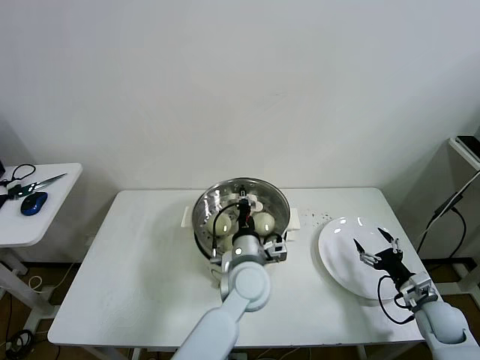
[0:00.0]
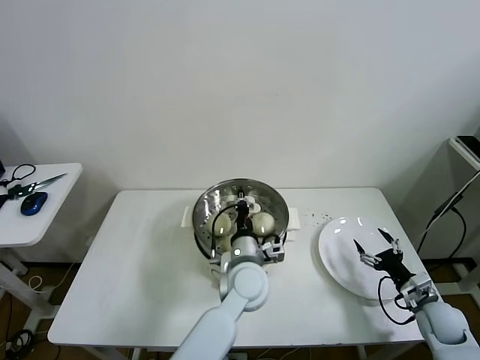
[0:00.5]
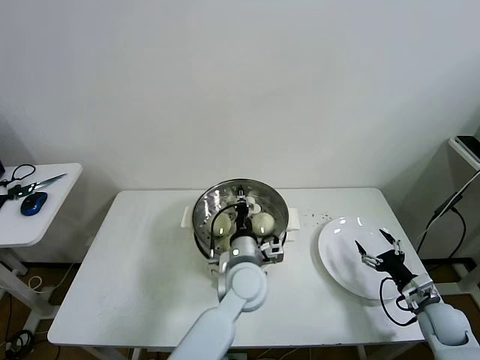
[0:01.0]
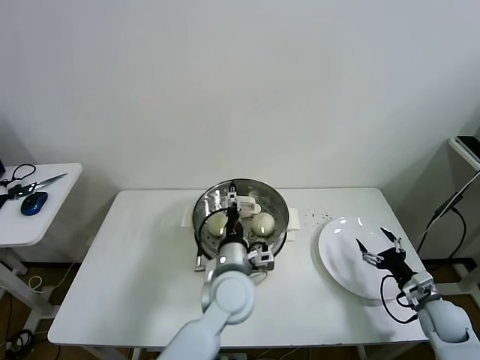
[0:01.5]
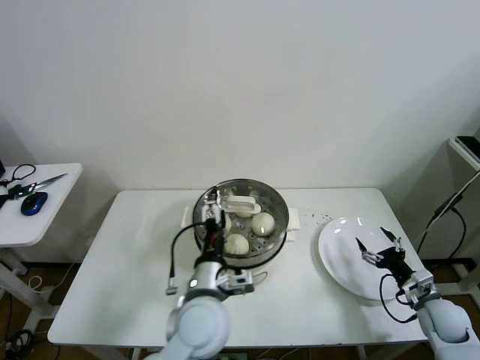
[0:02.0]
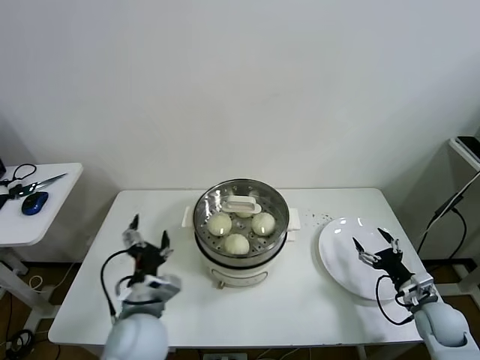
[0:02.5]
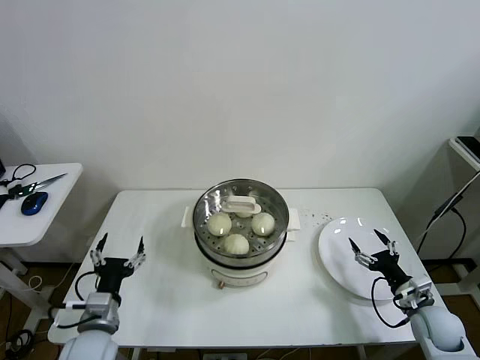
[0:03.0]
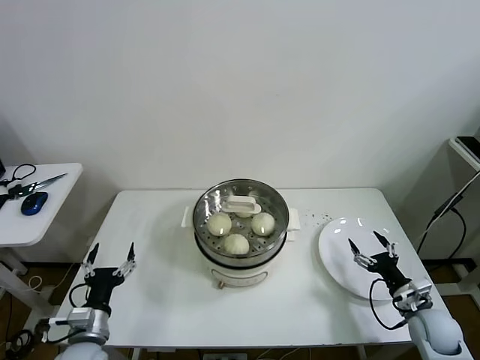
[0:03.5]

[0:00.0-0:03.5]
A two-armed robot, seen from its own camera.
Task of the whole recording: take steamed baozi put them in steamer then cover it.
0:00.0 to 0:02.0: The left gripper moves backward and to the left, roughly 10 cm, and opens.
0:02.0 to 0:03.5: The left gripper heads to the left and downward, covering some 30 cm.

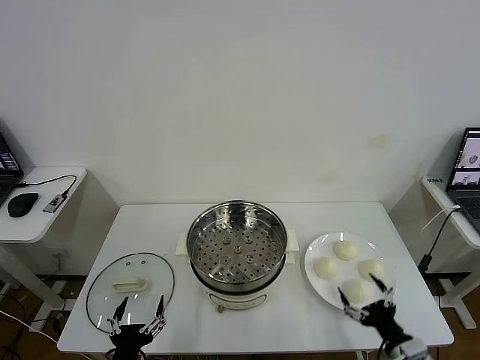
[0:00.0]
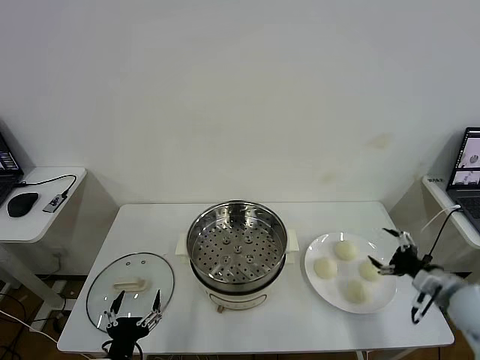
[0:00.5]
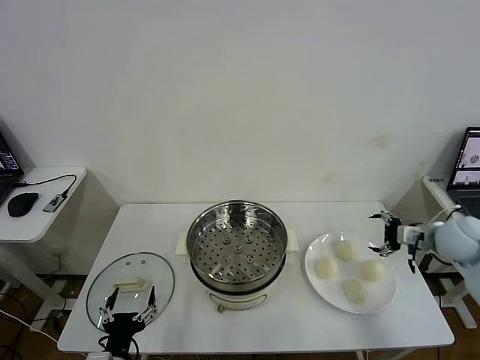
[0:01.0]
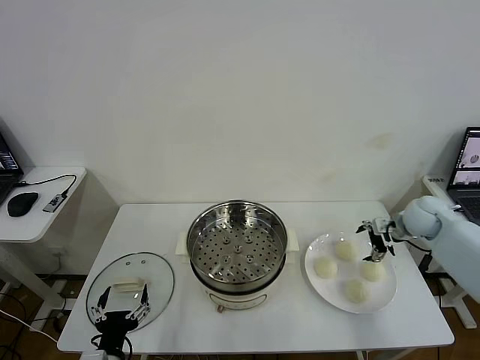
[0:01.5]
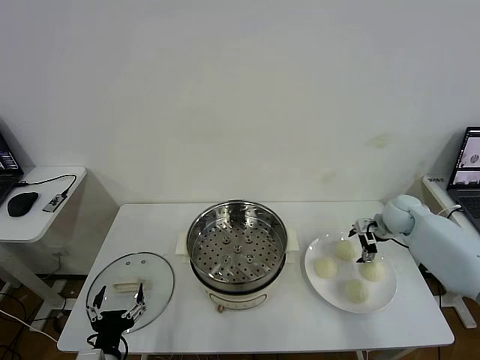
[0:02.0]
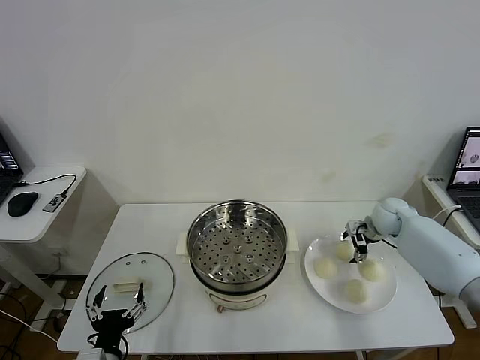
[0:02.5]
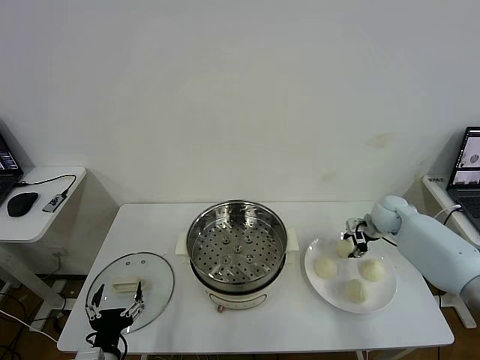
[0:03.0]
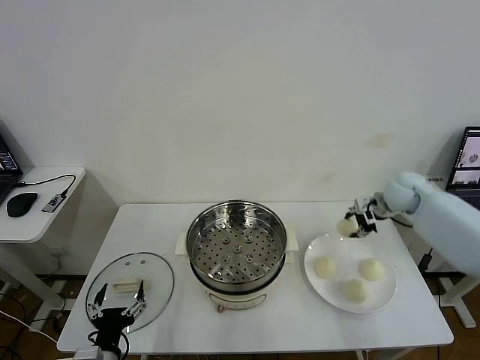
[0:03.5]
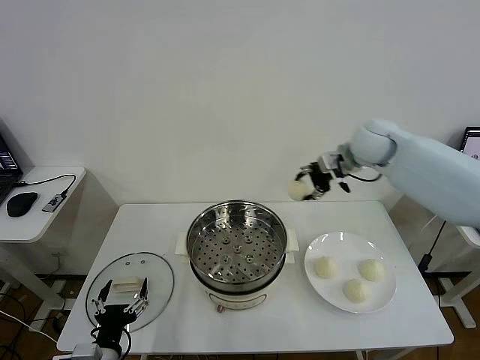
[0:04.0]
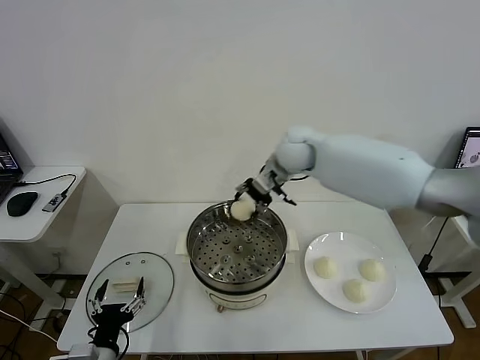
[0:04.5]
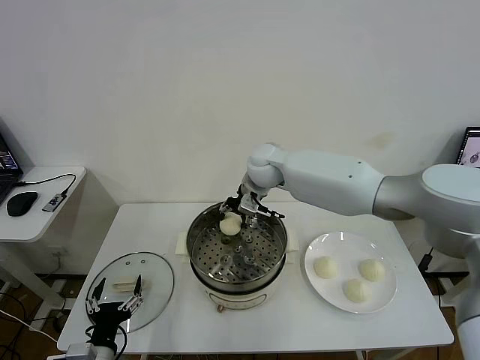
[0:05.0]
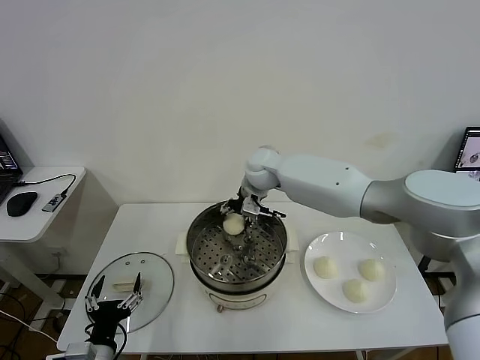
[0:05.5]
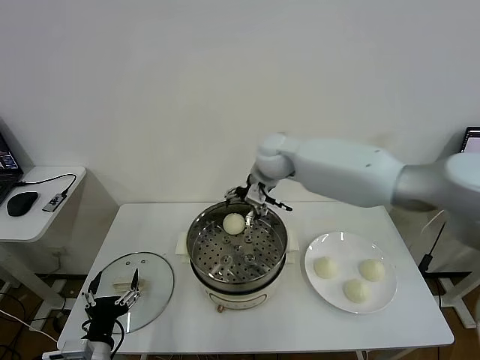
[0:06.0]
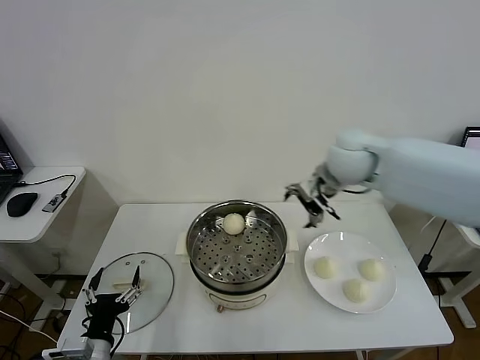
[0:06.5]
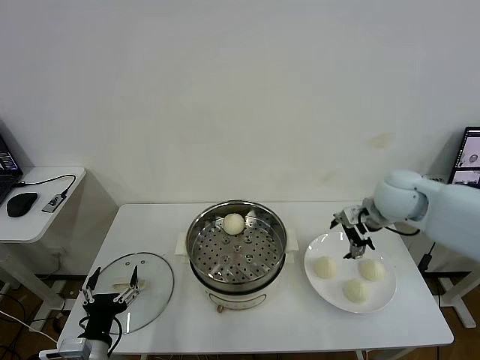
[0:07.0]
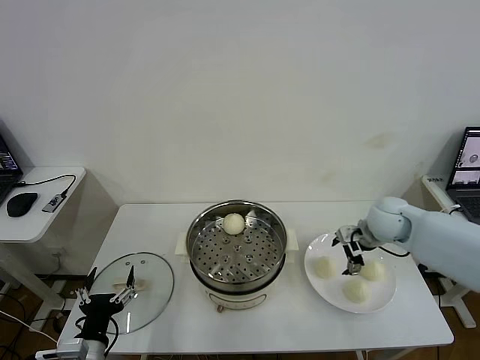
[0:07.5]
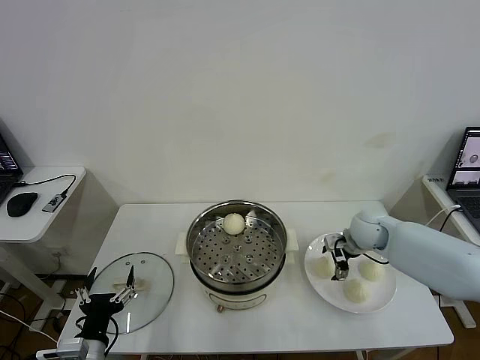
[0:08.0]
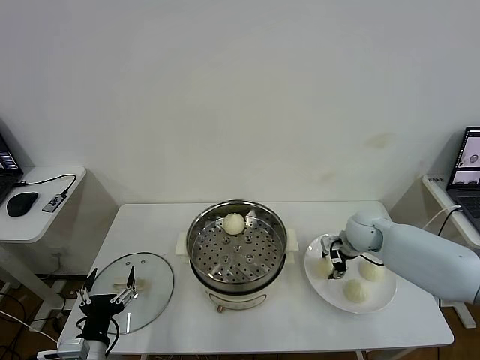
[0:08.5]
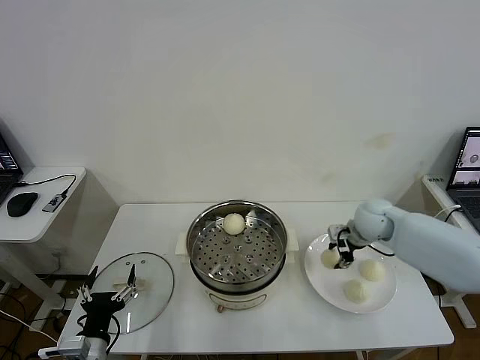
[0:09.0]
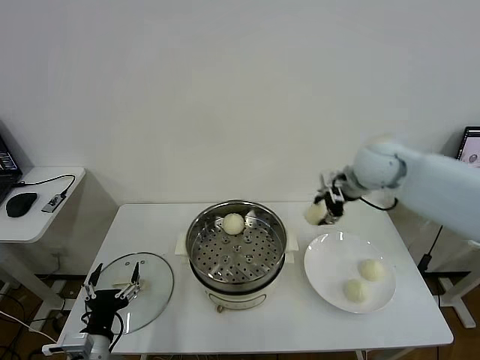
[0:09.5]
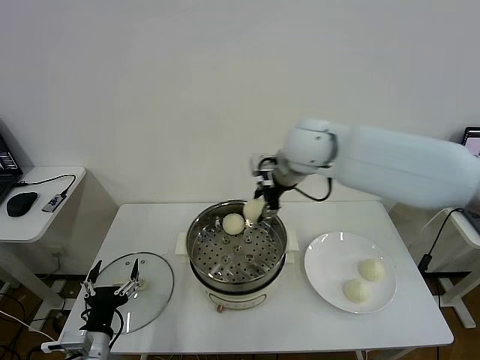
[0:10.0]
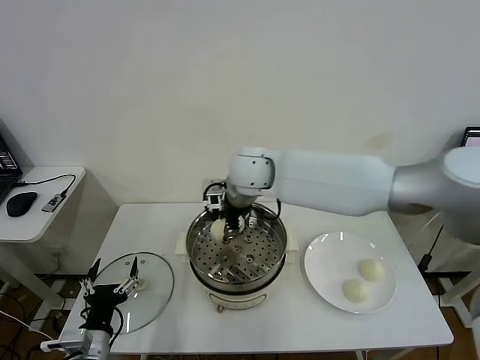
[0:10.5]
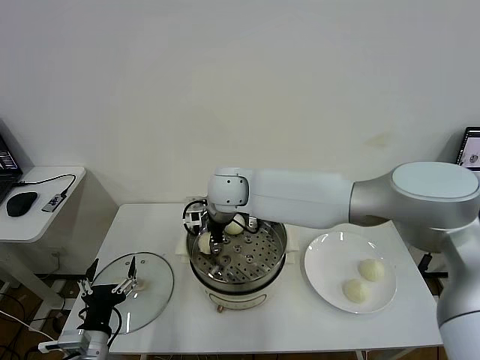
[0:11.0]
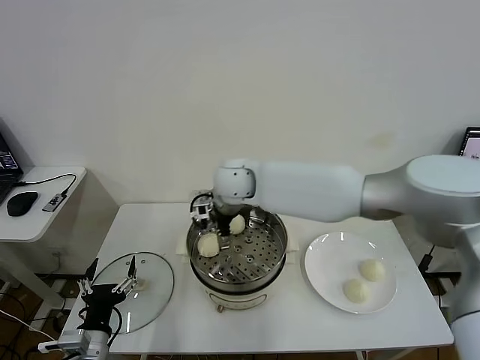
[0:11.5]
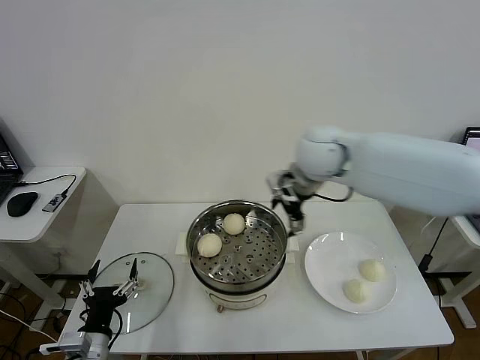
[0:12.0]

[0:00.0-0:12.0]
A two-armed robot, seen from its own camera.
Task of the whole recording: take steamed baozi put them in steamer then cover it.
Step, 0:00.0 to 0:03.0: Grasp the baozi in the plate with right gripper.
Step, 0:03.5 to 0:05.5: Place the baozi on the steamer with right gripper.
Step, 0:06.0 to 0:08.5: Grasp the baozi in the plate with right gripper.
Step, 0:09.0 to 0:11.5: Place the baozi on the steamer with right gripper.
0:02.0 to 0:04.0: The right gripper heads upward and to the left, covering some 25 cm, and closes up.
0:04.0 to 0:06.0: The right gripper goes approximately 15 cm to the left, and opens.
0:06.0 to 0:08.0: The right gripper goes approximately 30 cm to the right and downward.
0:08.0 to 0:10.0: The right gripper moves upward and to the left, approximately 30 cm, and closes its fingers.
0:10.0 to 0:12.0: The right gripper reaches approximately 15 cm to the left, then returns, and opens up.

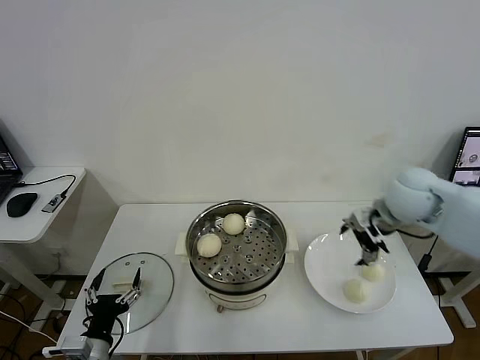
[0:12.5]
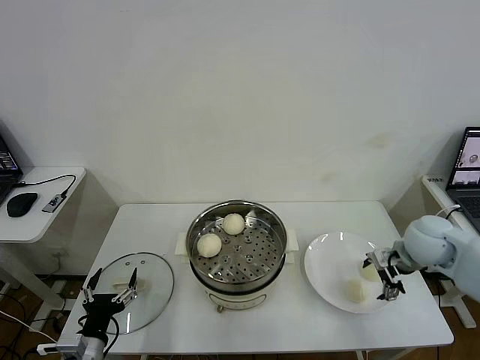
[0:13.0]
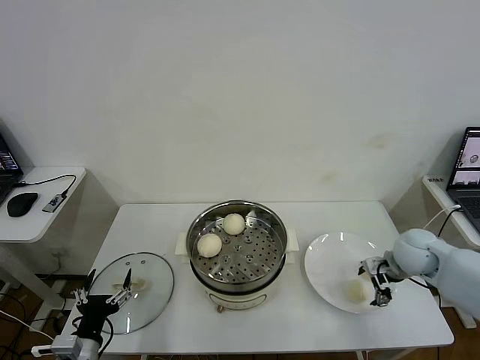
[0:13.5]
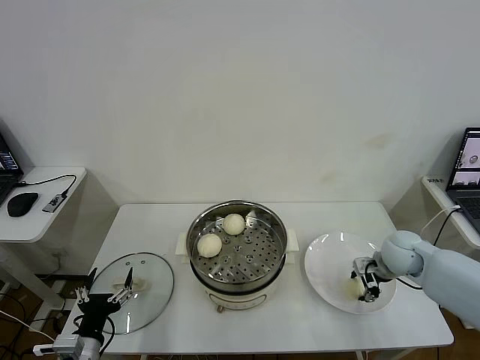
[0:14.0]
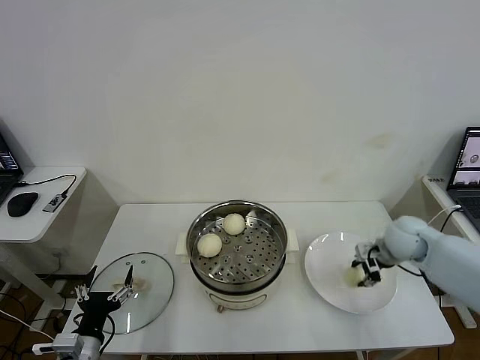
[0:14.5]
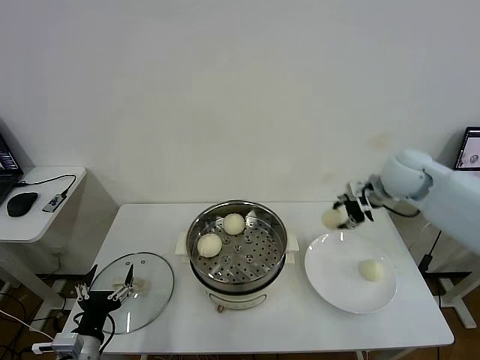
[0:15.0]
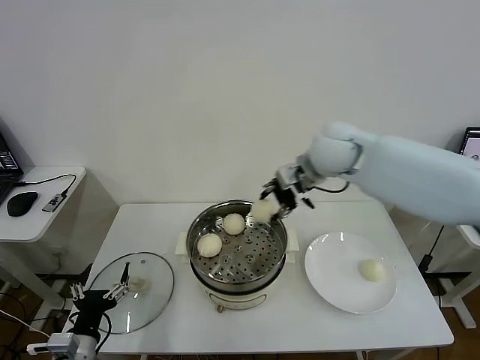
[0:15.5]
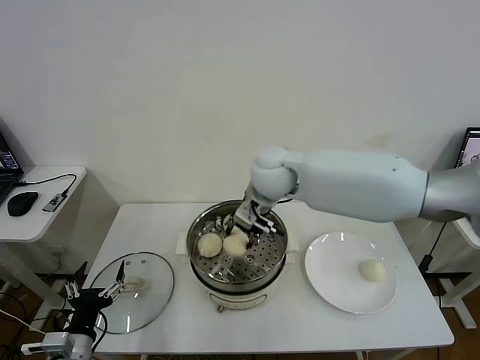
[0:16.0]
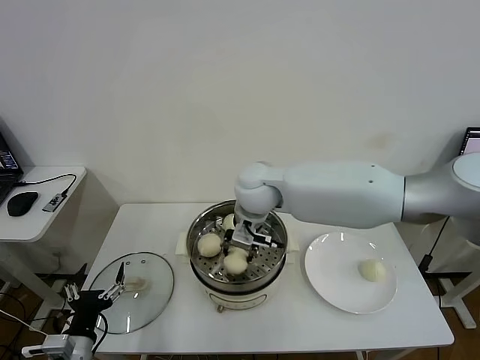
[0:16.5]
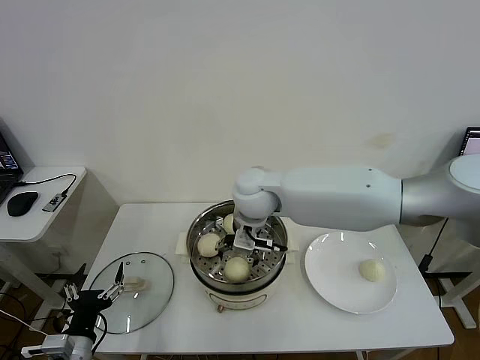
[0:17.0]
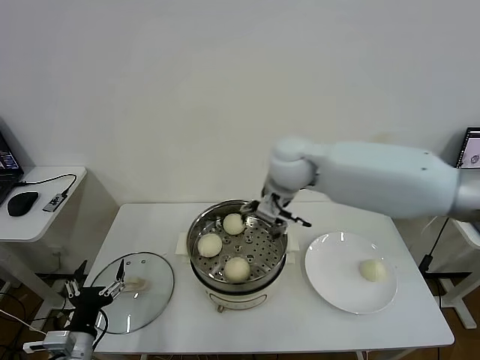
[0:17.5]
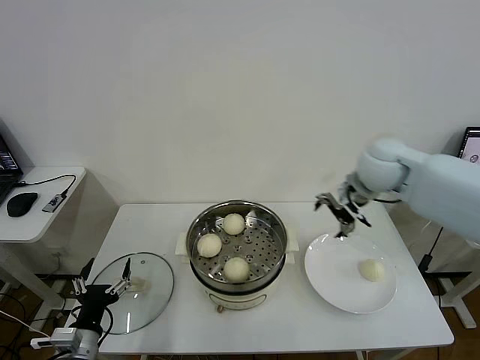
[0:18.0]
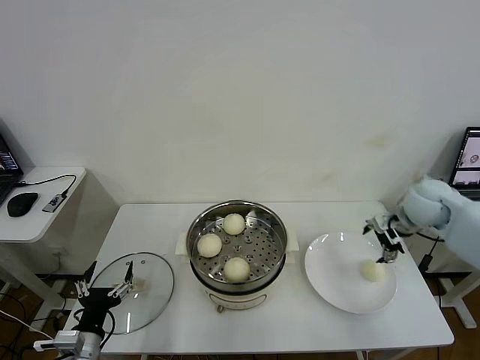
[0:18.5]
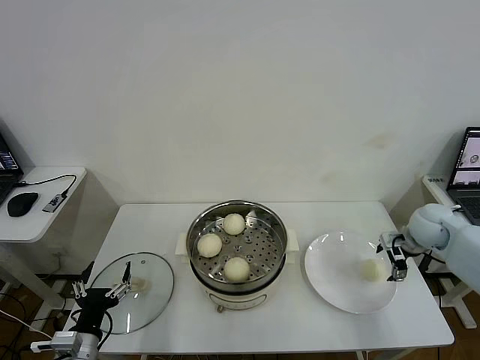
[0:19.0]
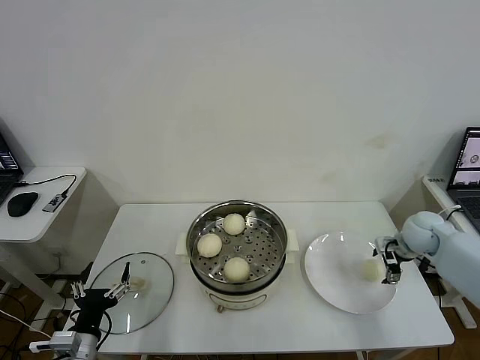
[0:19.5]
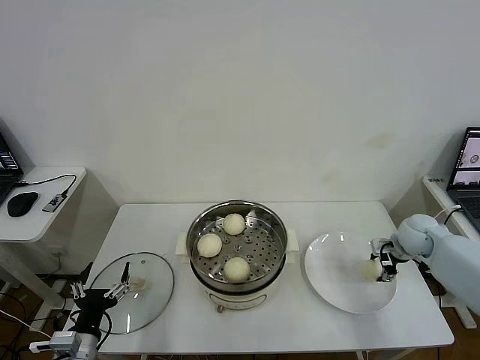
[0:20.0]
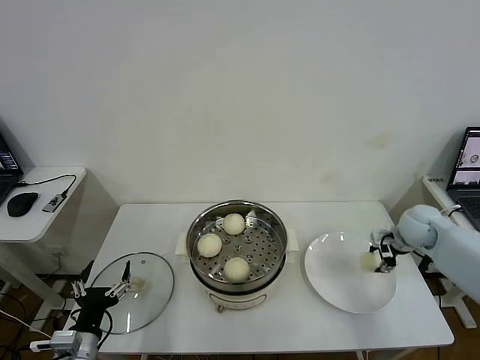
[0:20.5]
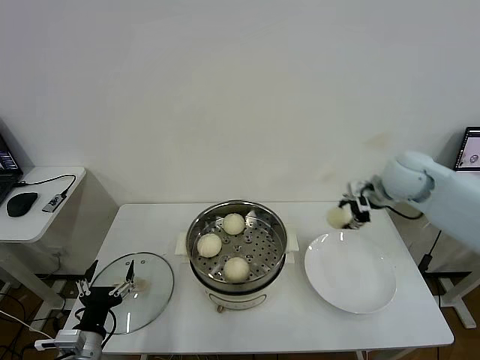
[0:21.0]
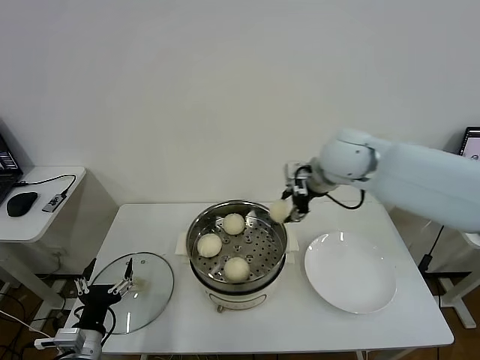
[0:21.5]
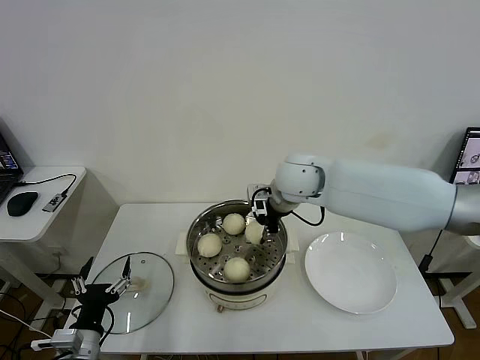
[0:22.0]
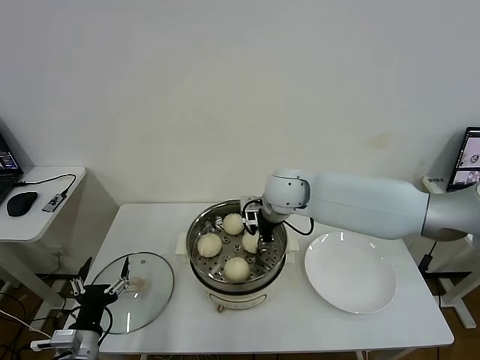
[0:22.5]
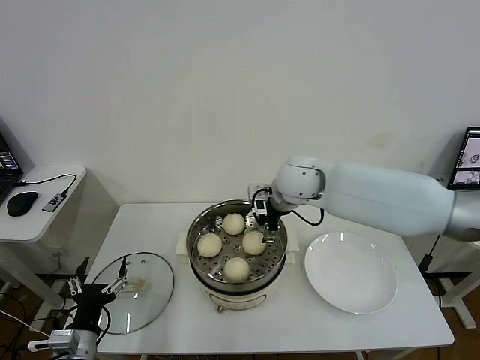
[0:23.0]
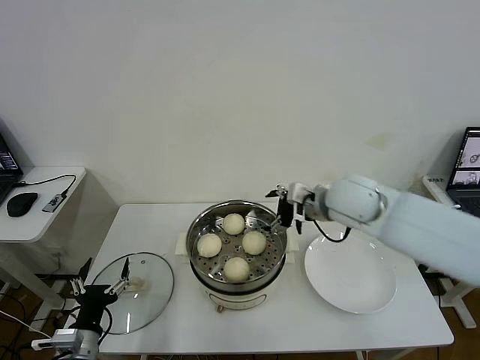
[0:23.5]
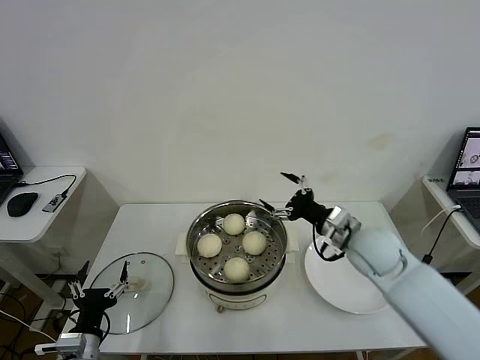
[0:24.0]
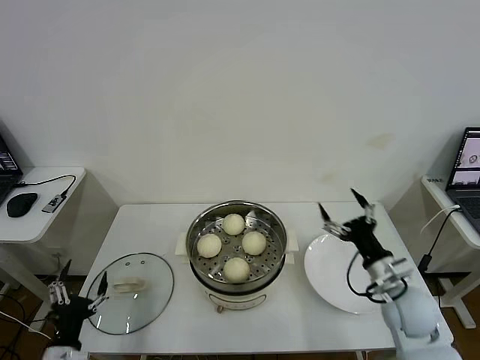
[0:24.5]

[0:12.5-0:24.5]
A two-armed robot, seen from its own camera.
Task of the whole recording: take steamed baozi put them in steamer then cover it.
Step, 0:12.5 to 0:14.0: Grasp the baozi in the plate with right gripper.
Step, 0:14.5 to 0:17.0: Place the baozi on the steamer with right gripper.
Step, 0:17.5 to 0:20.0: Grasp the baozi in the plate with right gripper.
Step, 0:21.0 to 0:23.0: Place the baozi on the steamer with right gripper.
0:12.5 to 0:14.5: The right gripper moves downward, roughly 10 cm, and closes.
0:14.5 to 0:16.5: The right gripper is displaced to the left by about 35 cm.
0:16.5 to 0:18.5: The right gripper moves to the right, some 35 cm, and opens its fingers.
0:18.5 to 0:20.5: The right gripper moves downward, approximately 10 cm, and closes.
0:20.5 to 0:22.5: The right gripper shifts some 35 cm to the left.
0:22.5 to 0:24.5: The right gripper shifts roughly 35 cm to the right, backward and downward, and opens its fingers.
